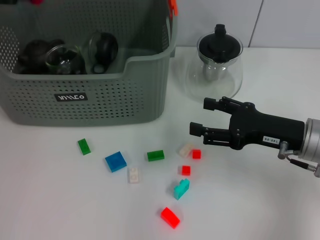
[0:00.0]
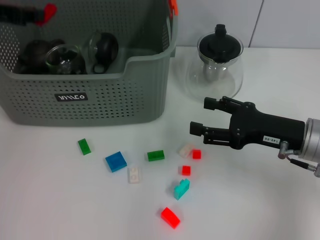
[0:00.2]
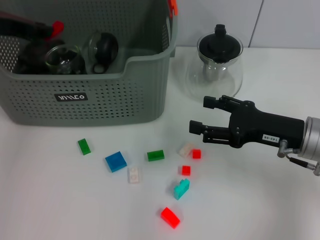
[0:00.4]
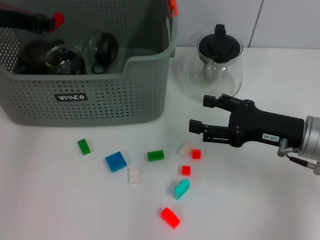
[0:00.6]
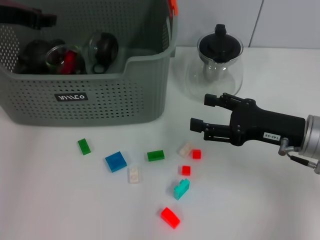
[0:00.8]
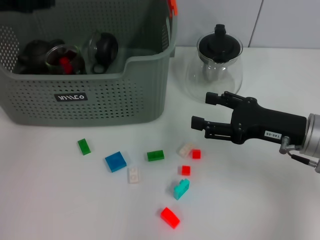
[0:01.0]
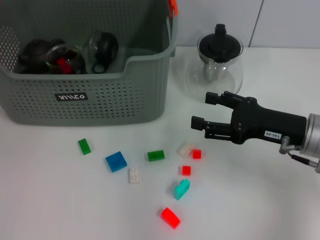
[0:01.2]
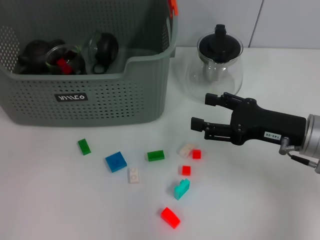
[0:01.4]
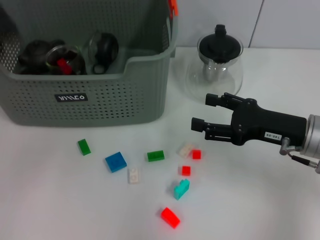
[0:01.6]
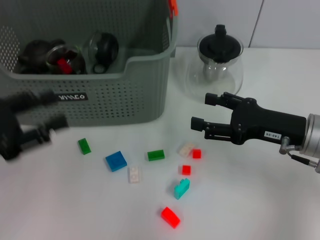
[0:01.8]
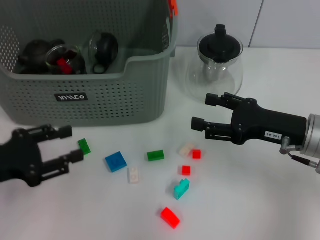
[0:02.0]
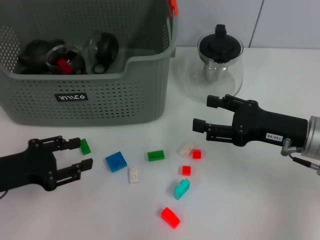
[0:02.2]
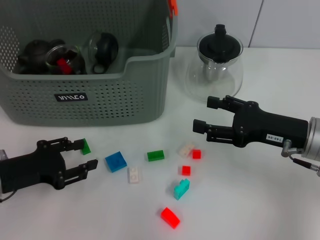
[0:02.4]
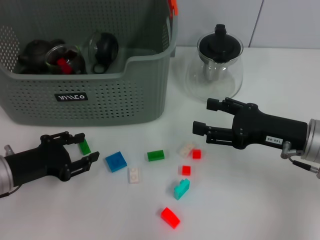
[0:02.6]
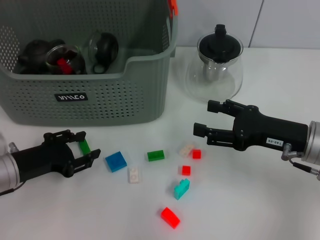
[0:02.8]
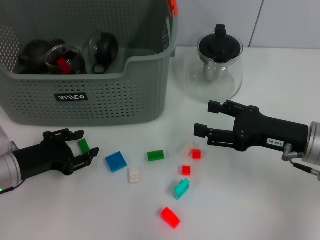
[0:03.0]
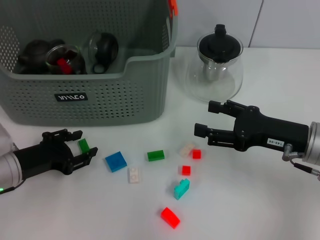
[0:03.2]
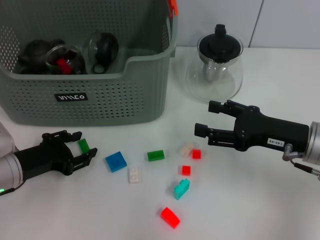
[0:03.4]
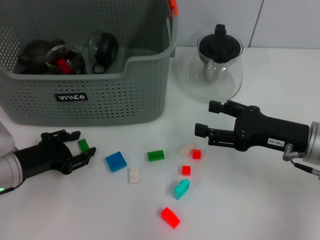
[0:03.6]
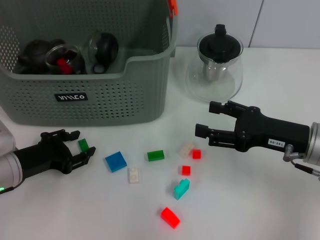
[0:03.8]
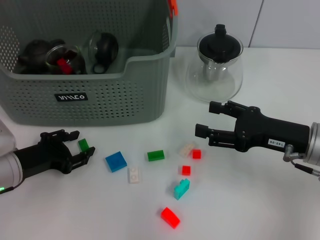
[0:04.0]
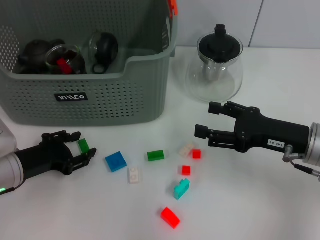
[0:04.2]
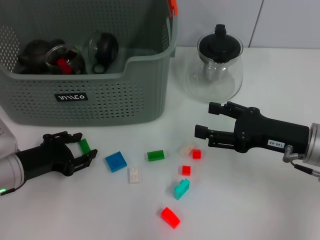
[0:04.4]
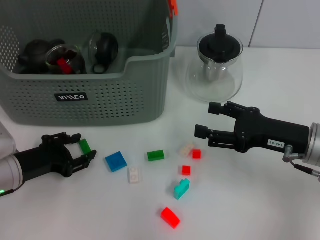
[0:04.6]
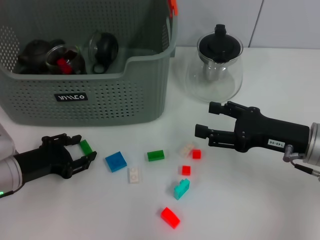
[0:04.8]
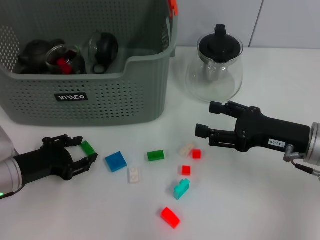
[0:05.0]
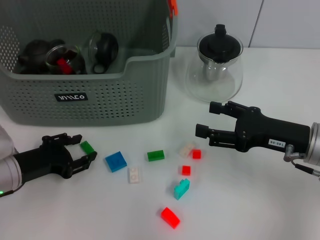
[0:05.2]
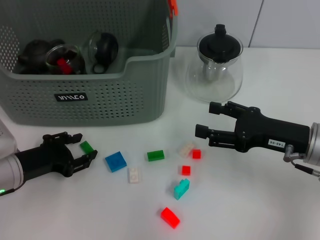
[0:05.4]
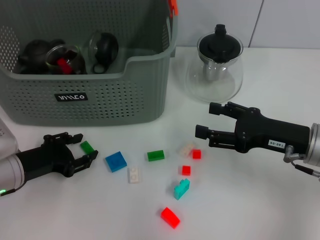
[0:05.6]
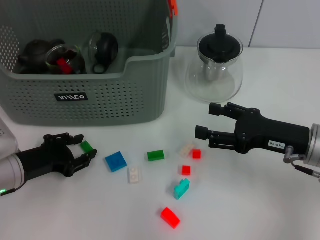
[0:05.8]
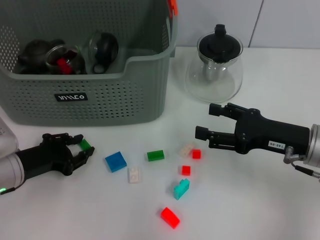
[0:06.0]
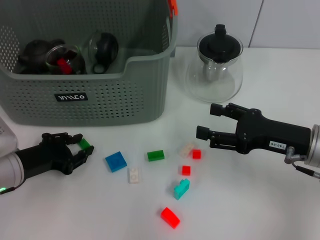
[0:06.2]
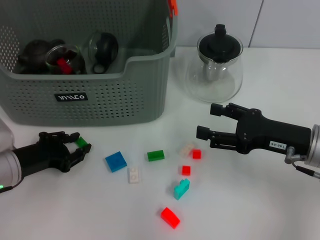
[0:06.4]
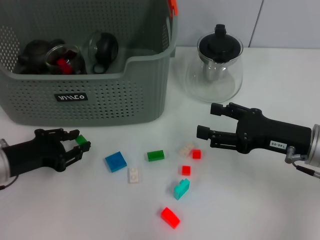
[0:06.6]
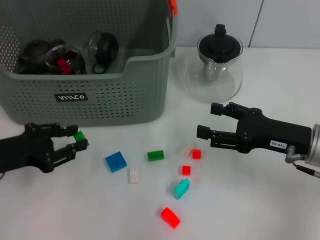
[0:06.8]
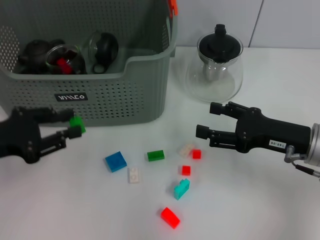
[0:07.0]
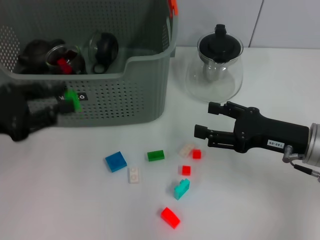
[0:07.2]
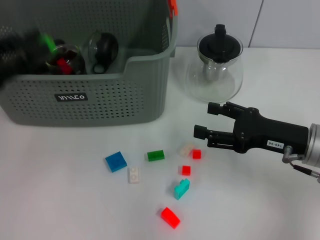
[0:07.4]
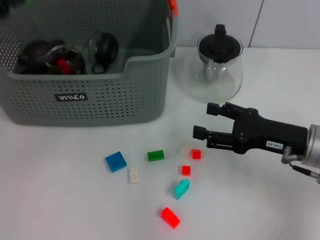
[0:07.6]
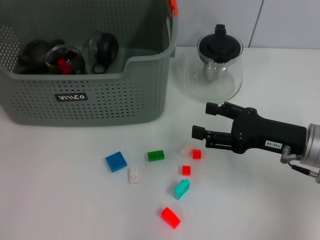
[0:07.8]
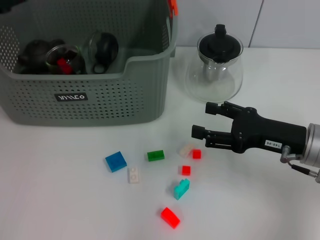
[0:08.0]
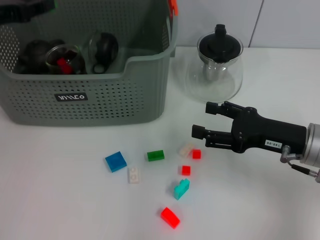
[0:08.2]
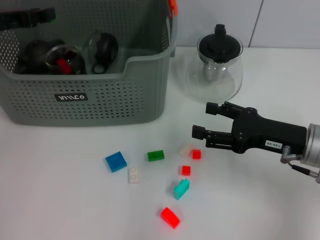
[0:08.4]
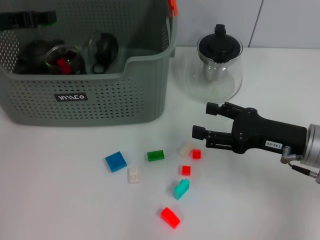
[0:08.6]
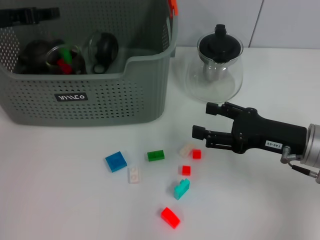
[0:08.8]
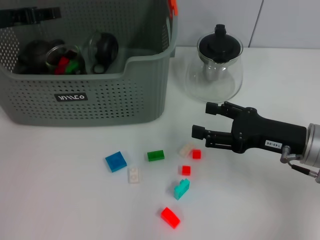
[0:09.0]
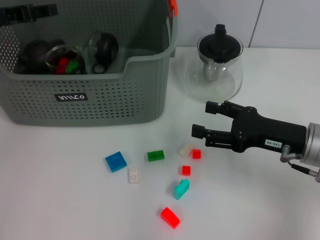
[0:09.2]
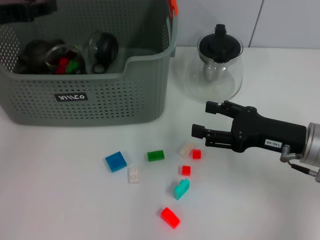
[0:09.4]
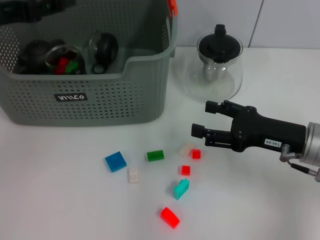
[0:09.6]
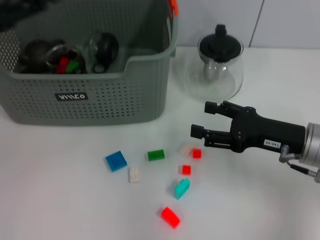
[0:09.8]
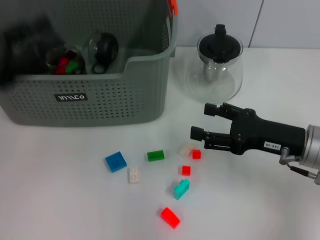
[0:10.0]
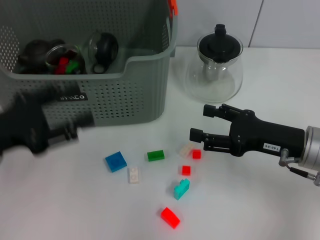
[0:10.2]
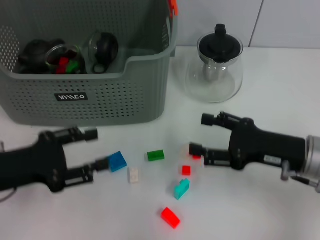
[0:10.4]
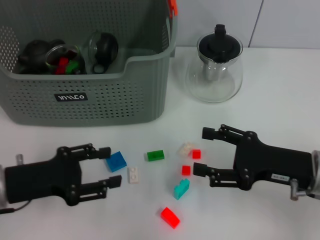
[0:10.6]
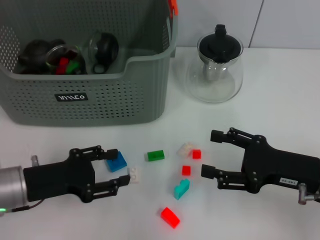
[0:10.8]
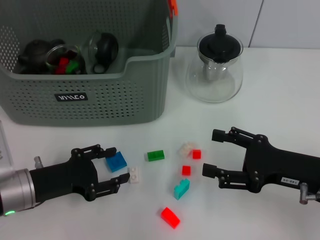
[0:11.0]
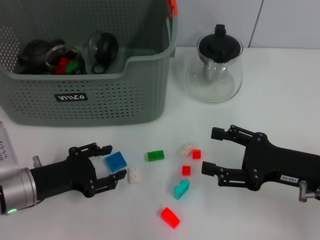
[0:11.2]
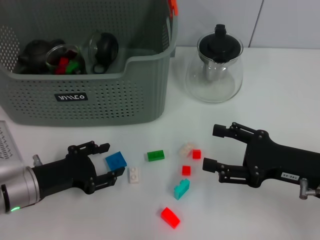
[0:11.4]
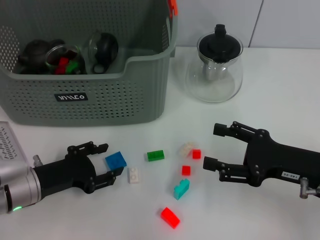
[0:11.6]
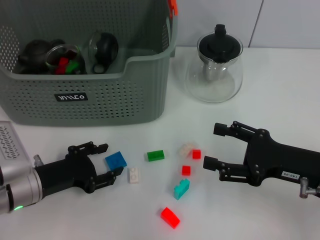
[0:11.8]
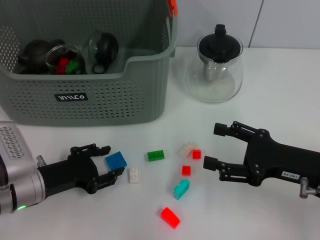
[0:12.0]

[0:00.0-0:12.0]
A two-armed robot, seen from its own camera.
Task of the whole recording: pick up the teacup on the table and place it into the storage bin, pick up the block on the table and place it into the storage bin.
Step, 2.0 to 6.6 s: Grasp the green block with left gripper.
Step, 6.8 to 9.2 s: Place the green block in the storage box with left gripper.
0.0 to 1.6 s: The left gripper is displaced backward and downward by approximately 15 cm, and opens.
1.6 to 3.0 s: The left gripper shifts roughly 15 cm downward and to the right.
3.0 to 6.0 s: The two grippers keep their place.
6.0 to 7.6 s: The left gripper heads upward, covering approximately 15 cm.
7.6 to 9.0 s: The left gripper goes some 10 cm forward.
9.0 to 10.4 s: The left gripper goes approximately 20 cm backward and downward.
10.4 to 12.0 s: The left gripper heads downward, covering roughly 10 cm.

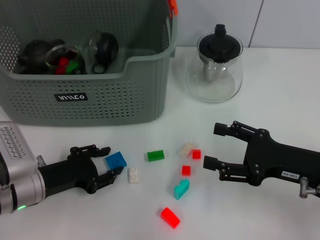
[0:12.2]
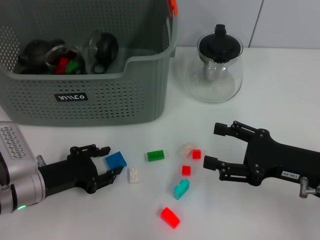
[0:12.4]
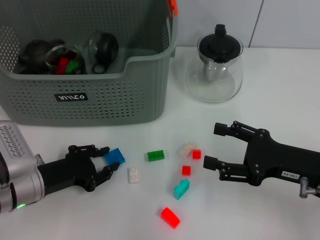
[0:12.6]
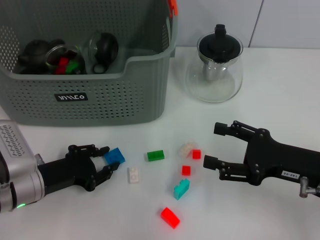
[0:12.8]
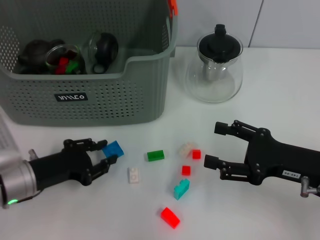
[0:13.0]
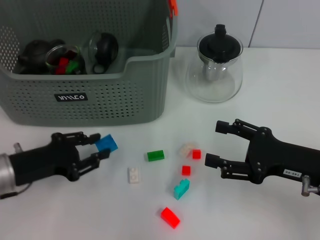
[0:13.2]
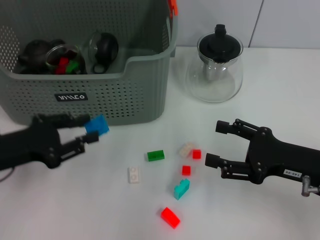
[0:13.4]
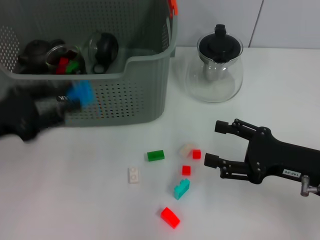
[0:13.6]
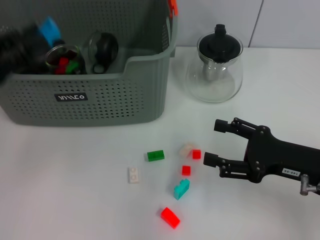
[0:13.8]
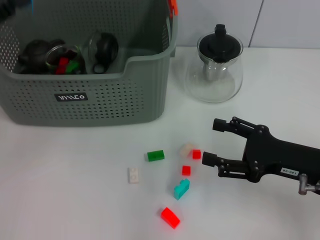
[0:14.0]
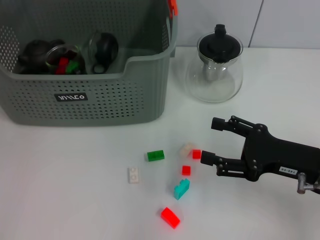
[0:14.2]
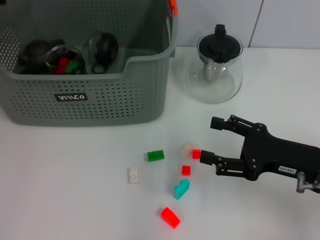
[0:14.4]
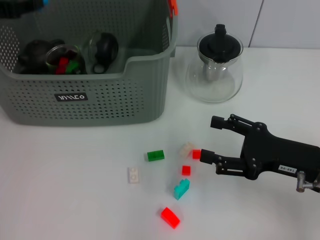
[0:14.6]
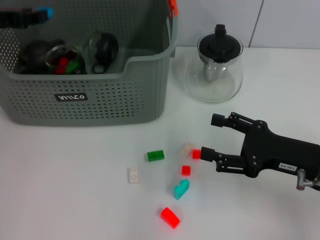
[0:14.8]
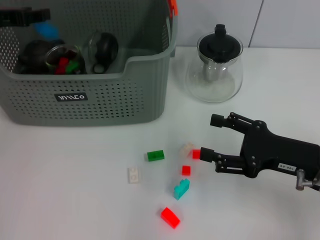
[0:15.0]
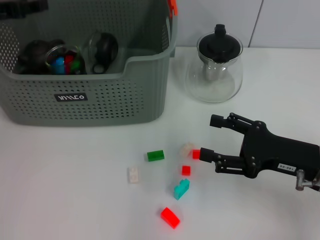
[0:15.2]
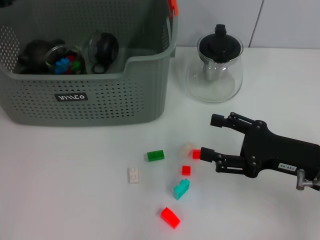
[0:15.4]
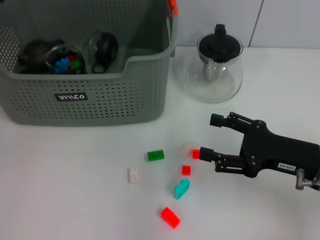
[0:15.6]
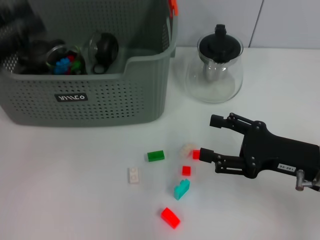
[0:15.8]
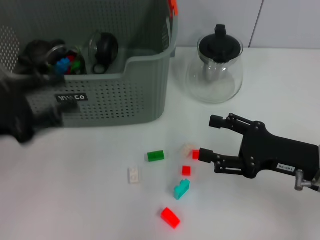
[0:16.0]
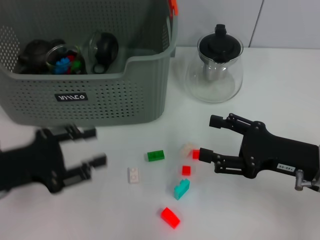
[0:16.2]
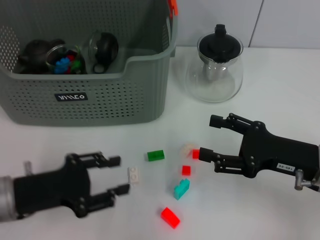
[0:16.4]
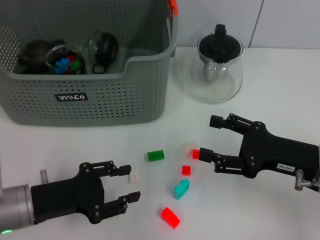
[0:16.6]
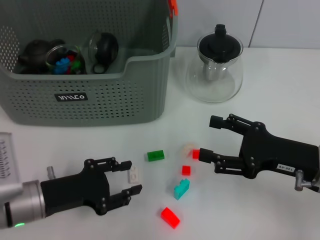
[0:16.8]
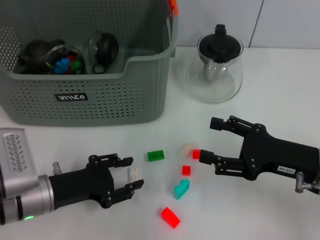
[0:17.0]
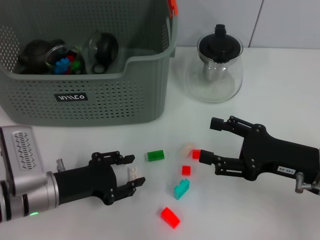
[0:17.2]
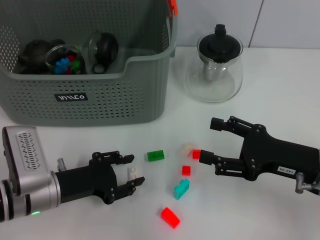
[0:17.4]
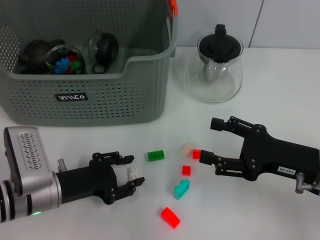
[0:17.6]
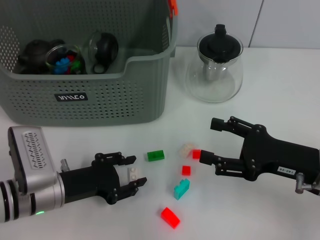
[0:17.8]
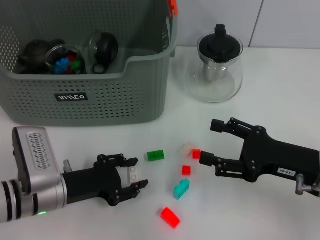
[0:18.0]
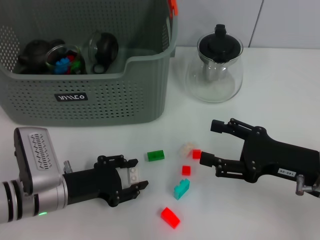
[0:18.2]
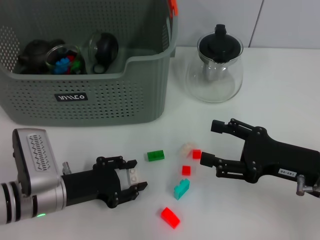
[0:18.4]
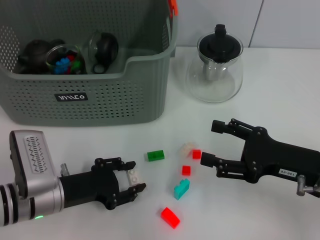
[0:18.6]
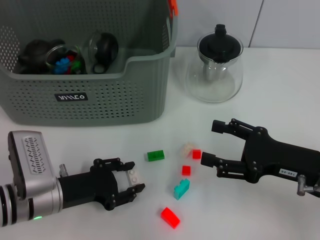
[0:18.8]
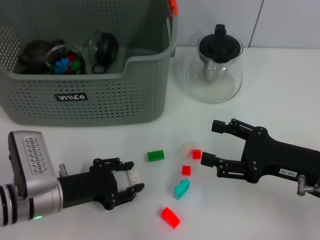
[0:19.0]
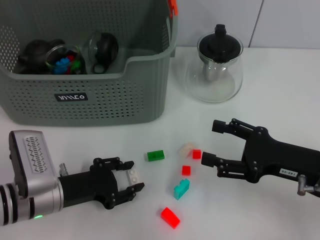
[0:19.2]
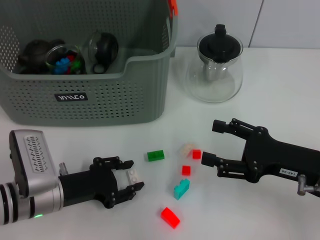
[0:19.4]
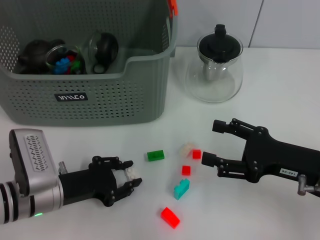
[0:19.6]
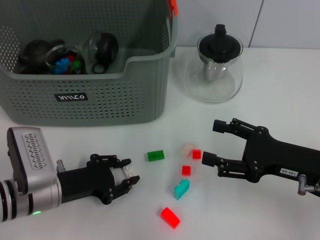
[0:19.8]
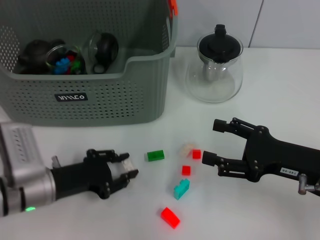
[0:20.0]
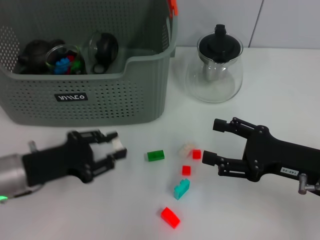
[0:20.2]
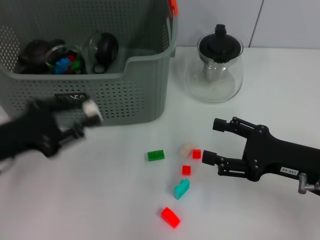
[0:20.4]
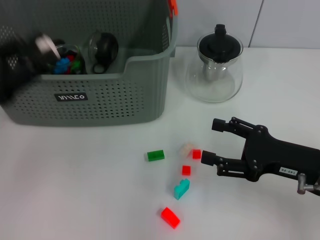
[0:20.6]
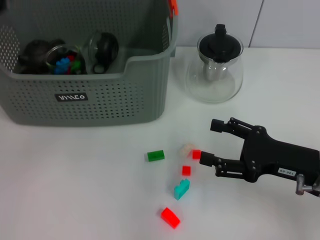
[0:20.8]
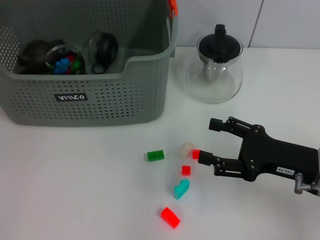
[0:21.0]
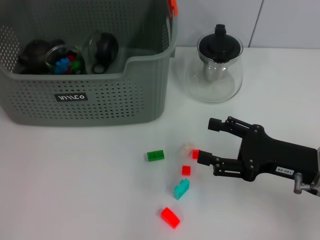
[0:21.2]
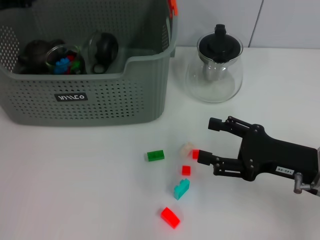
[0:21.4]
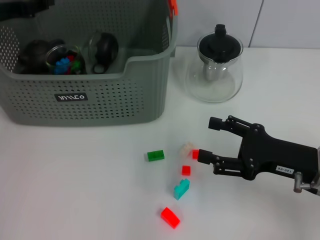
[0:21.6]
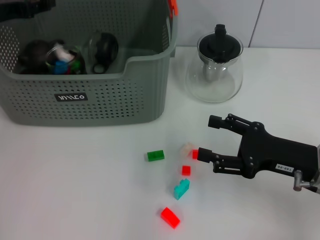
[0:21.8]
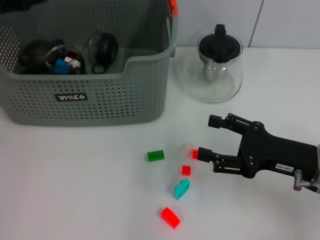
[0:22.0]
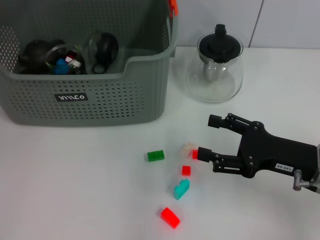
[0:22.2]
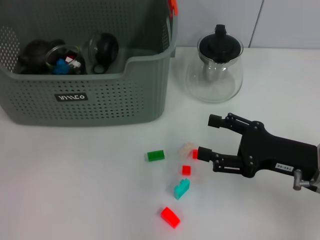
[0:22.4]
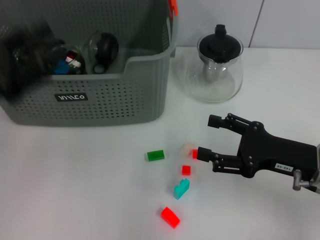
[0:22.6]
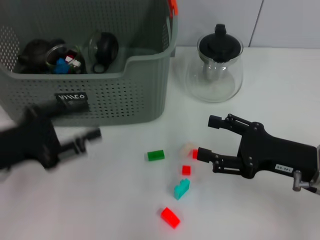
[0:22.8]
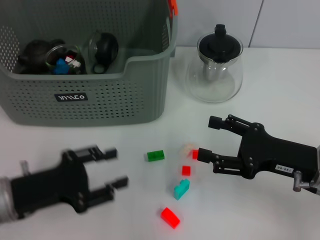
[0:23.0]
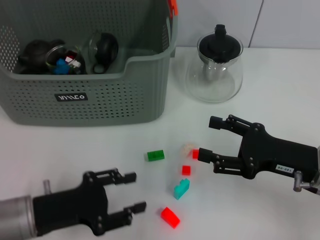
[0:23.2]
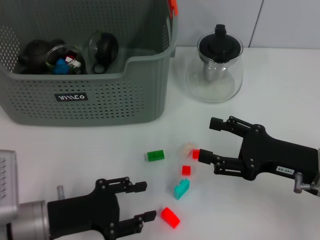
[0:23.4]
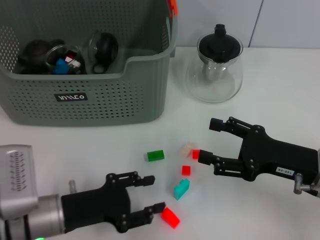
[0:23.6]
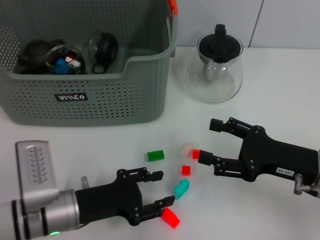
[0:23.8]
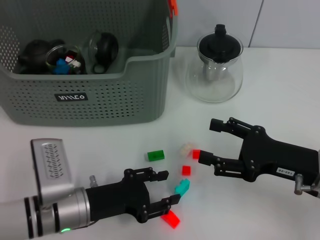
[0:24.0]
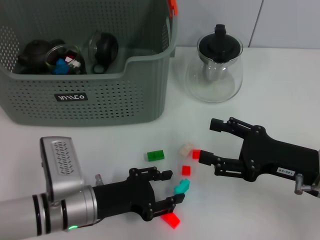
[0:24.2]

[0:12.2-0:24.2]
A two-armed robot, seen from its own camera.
Task of the whole recording: pick up the teacup on the table and place it into the storage bin, pick up the block on the table and place it into the storage bin.
Step, 13.0 to 15.2 s: Place the dark blue block in the storage box with left gripper.
Step, 15.4 to 19.4 s: Grasp the white block with left gripper.
Step, 19.8 to 22.4 s: Place the white block in the storage box with left gripper.
12.2 to 13.8 s: The left gripper shifts about 15 cm upward and to the left.
13.8 to 15.2 s: The left gripper travels forward by approximately 10 cm.
15.2 to 16.6 s: The left gripper heads backward, downward and to the right, covering roughly 25 cm.
16.6 to 18.2 s: The left gripper ends up some 5 cm from where it was.
18.2 to 19.8 s: Neither gripper changes place.
19.8 to 21.2 s: The left gripper travels upward, forward and to the left by some 25 cm.
21.2 to 22.6 s: The left gripper is displaced backward and downward by approximately 15 cm.
22.6 to 24.2 s: The left gripper heads downward and to the right, covering about 20 cm.
